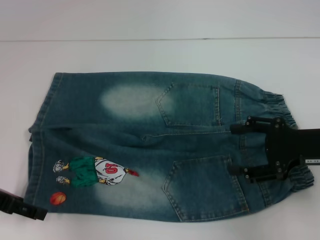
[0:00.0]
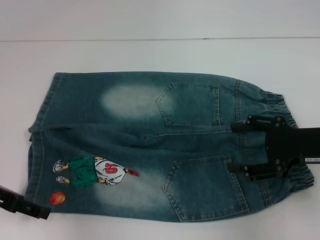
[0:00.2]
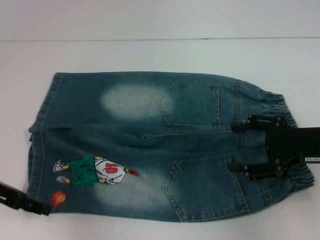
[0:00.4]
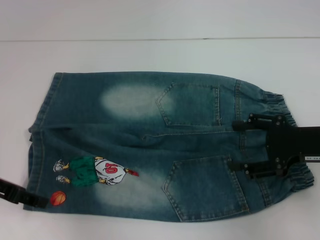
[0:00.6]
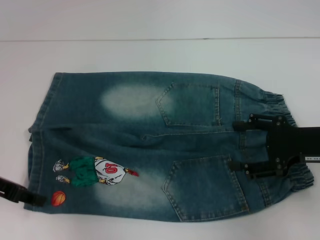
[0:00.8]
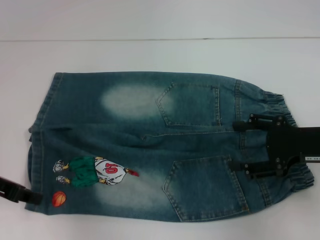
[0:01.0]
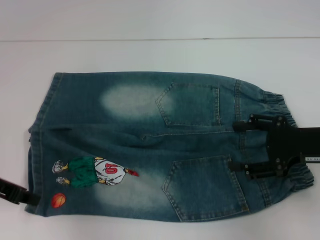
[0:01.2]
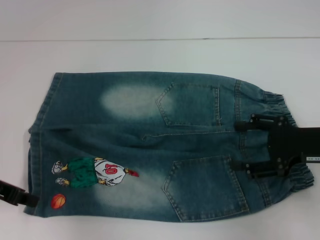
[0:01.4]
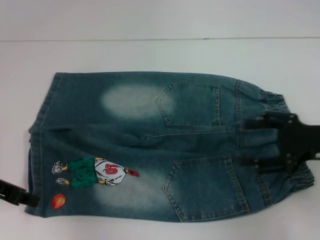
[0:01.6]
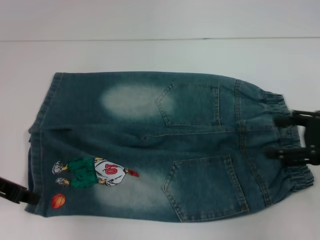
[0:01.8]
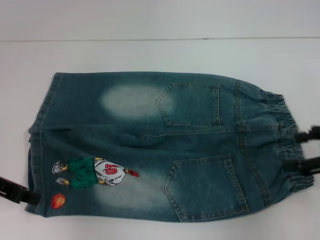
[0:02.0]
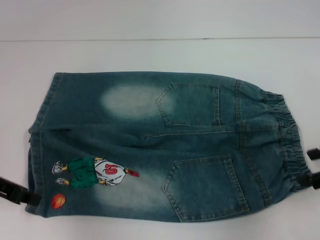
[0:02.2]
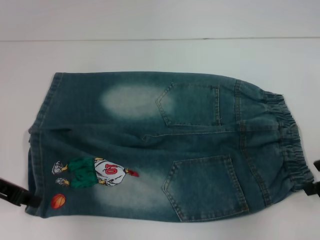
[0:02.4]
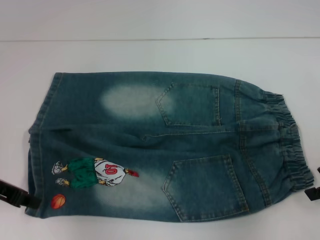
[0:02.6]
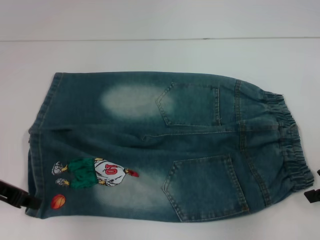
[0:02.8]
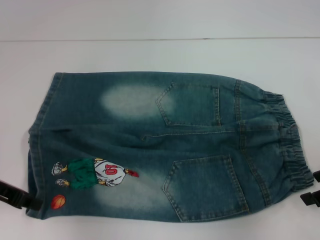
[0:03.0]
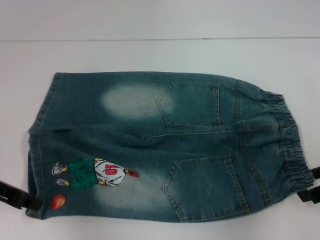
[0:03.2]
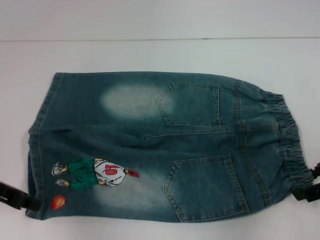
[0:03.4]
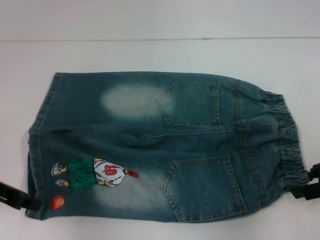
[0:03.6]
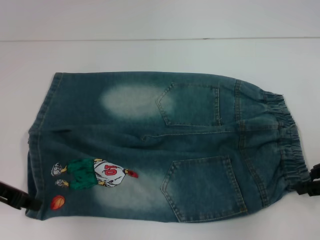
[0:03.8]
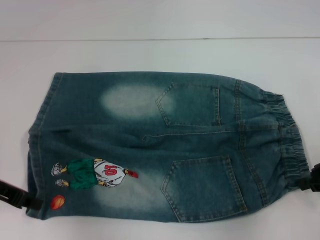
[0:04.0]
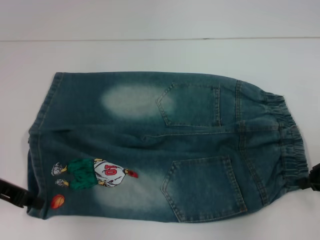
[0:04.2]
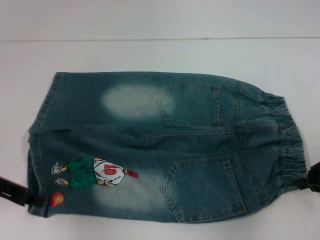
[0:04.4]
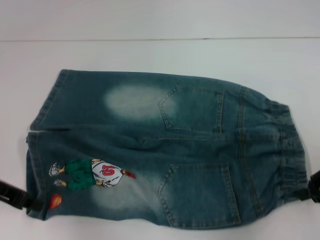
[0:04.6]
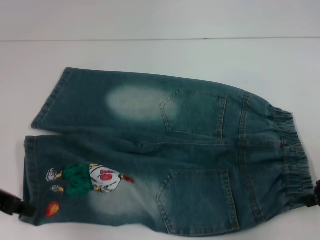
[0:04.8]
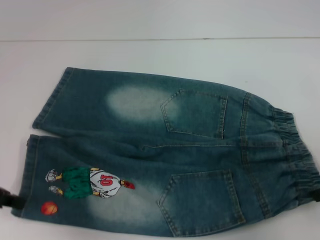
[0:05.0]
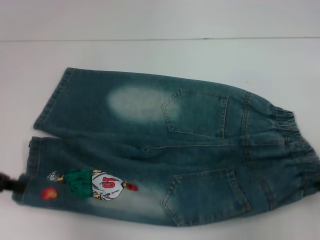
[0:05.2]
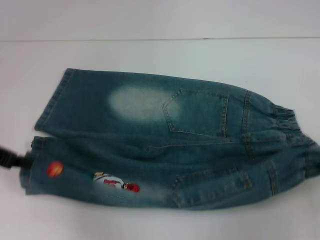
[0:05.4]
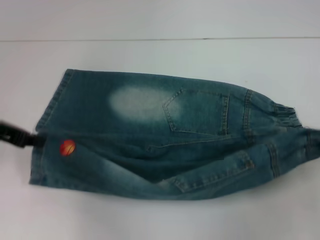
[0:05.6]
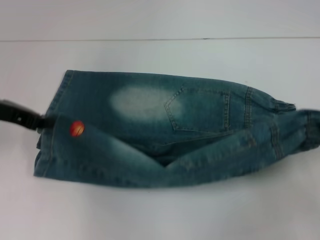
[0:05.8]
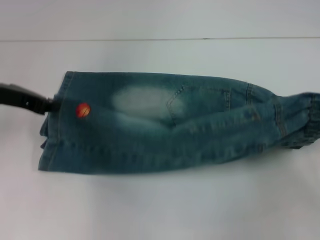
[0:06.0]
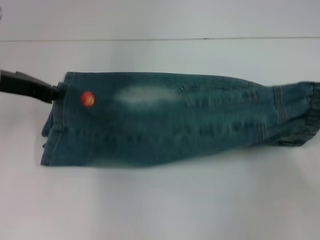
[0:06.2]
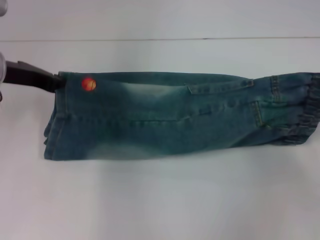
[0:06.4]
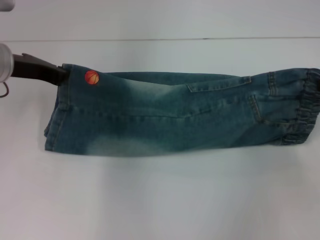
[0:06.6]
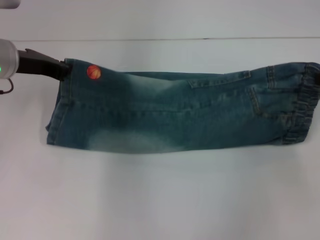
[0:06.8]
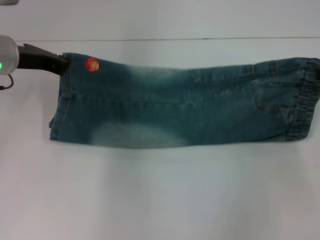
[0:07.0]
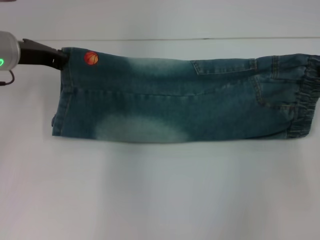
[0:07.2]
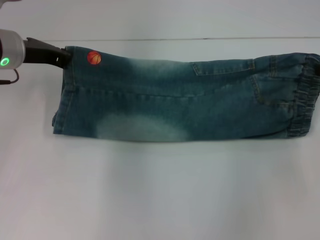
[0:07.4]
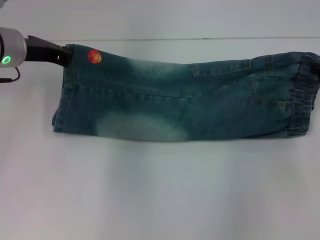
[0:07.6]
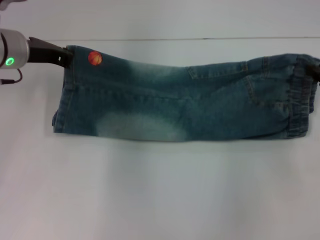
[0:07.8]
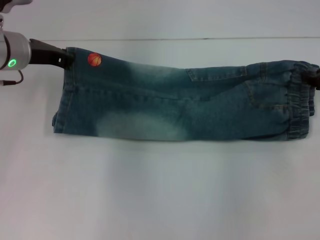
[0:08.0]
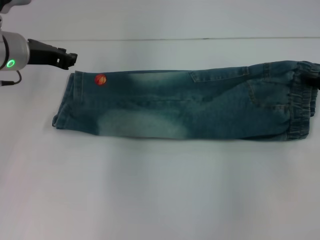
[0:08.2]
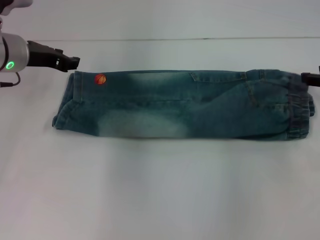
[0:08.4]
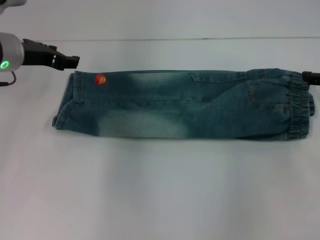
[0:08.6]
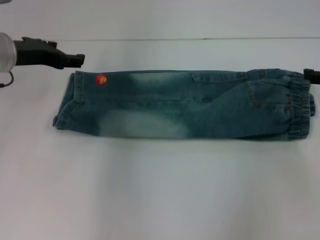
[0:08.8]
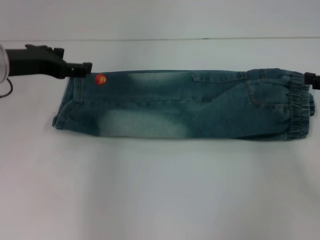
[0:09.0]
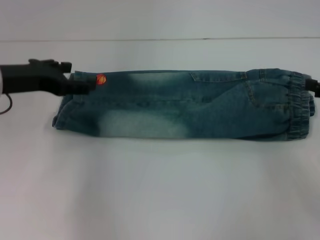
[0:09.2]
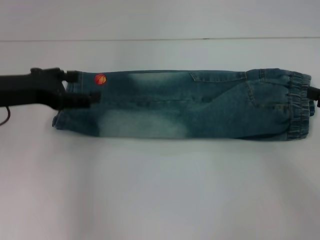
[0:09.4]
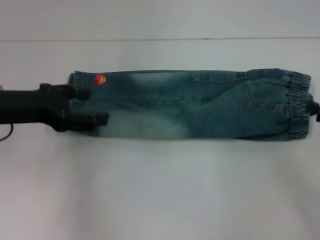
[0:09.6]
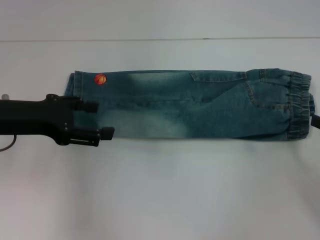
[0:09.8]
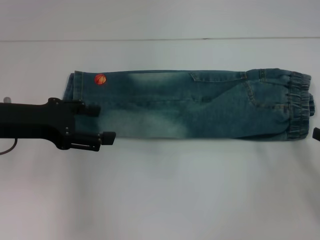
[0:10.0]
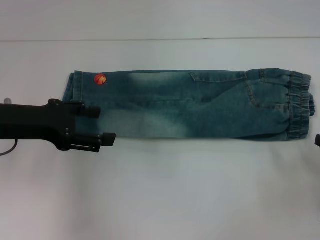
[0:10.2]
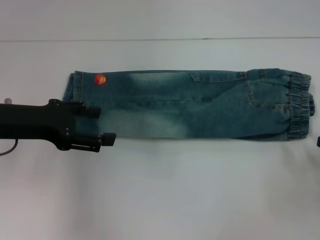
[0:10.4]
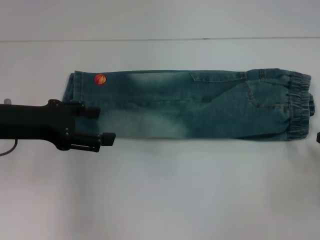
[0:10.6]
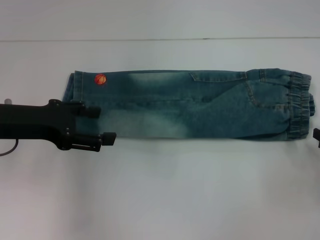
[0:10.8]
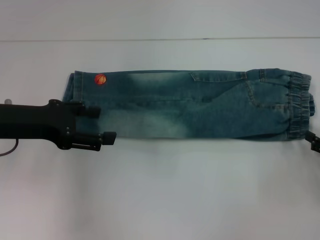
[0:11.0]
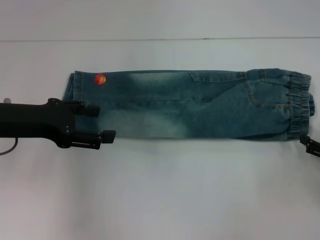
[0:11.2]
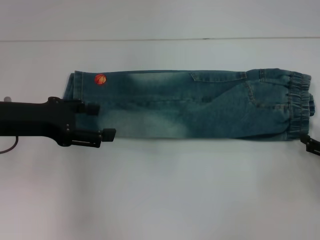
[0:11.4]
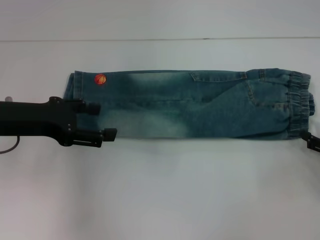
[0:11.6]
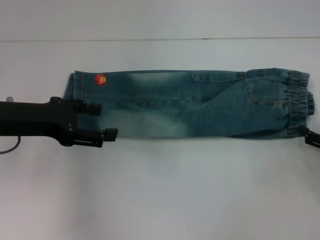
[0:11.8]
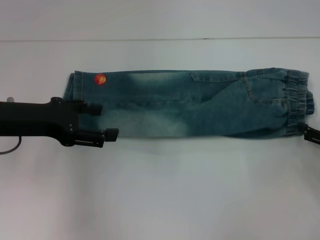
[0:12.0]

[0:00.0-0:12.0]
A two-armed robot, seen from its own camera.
Step, 0:00.0 to 0:04.6: Hold the lower right waistband with your right hand.
Step, 0:04.8 to 0:08.0: Fold upward with your left hand.
0:00.0 to 0:01.6: The left gripper closes up.
0:03.0 to 0:04.4: The right gripper closes.
0:04.4 to 0:06.0: The left gripper heads forward and upward, covering roughly 10 cm; the right gripper shifts by about 5 cm.
0:06.0 to 0:07.6: The grippers both shift forward by some 5 cm.
0:07.6 to 0:09.0: The left gripper opens. Meanwhile the right gripper opens.
0:09.0 to 0:10.4: The right gripper travels backward and downward by some 15 cm, while the left gripper travels backward by approximately 5 cm.
0:10.4 to 0:12.0: The right gripper travels forward by approximately 5 cm.

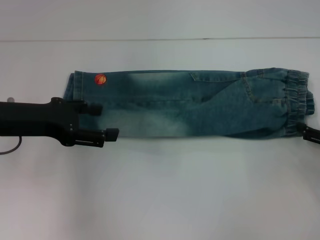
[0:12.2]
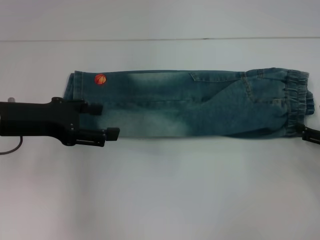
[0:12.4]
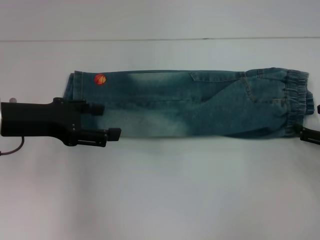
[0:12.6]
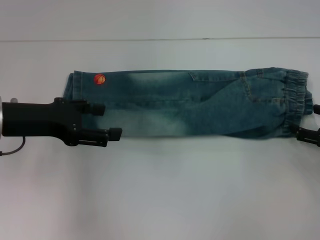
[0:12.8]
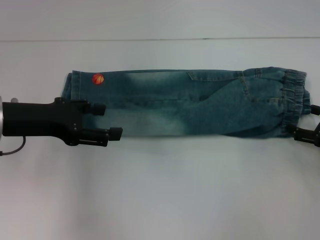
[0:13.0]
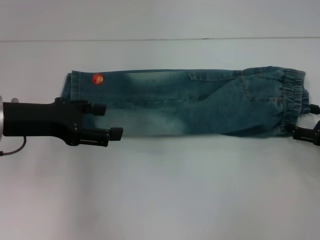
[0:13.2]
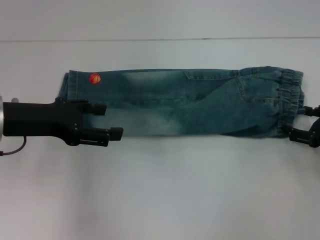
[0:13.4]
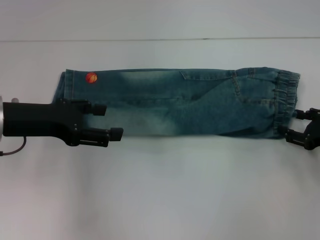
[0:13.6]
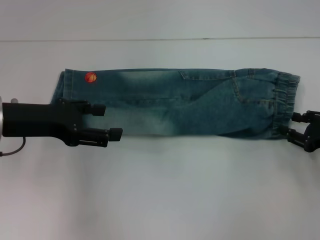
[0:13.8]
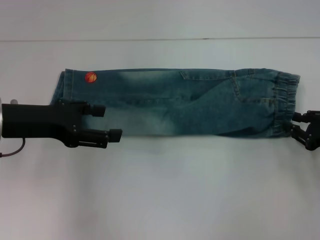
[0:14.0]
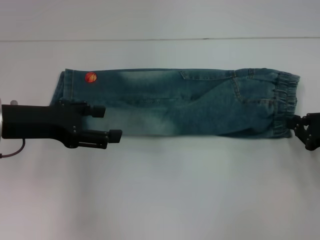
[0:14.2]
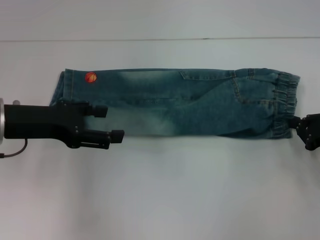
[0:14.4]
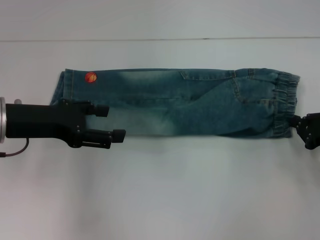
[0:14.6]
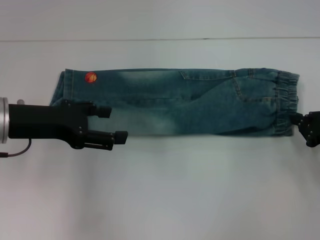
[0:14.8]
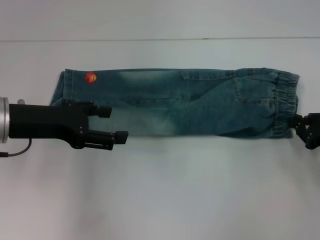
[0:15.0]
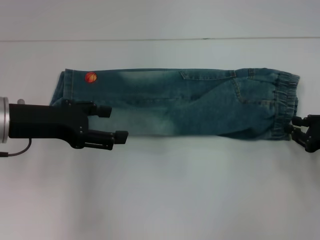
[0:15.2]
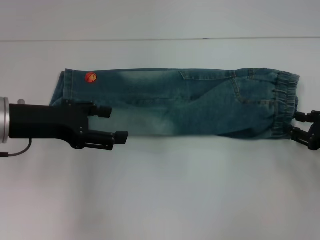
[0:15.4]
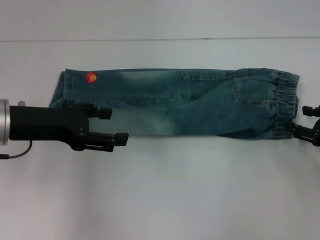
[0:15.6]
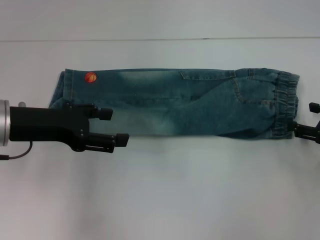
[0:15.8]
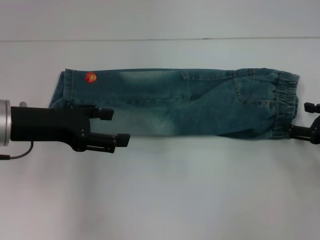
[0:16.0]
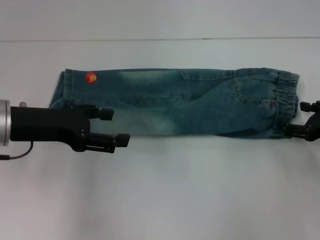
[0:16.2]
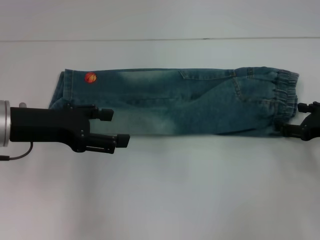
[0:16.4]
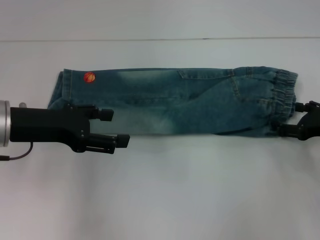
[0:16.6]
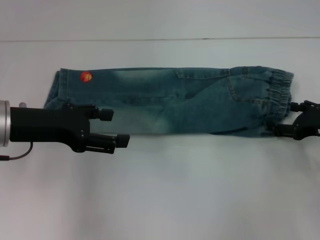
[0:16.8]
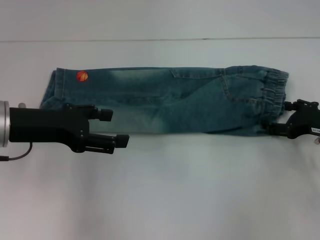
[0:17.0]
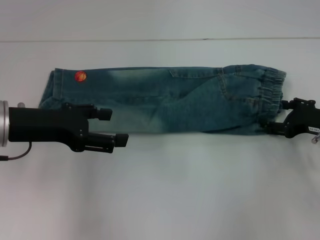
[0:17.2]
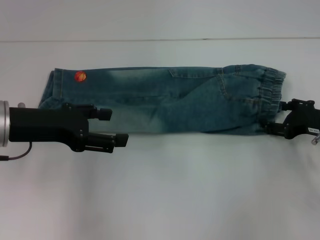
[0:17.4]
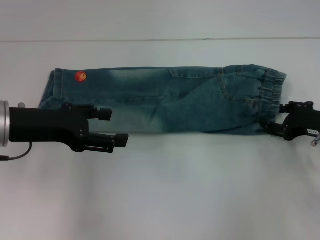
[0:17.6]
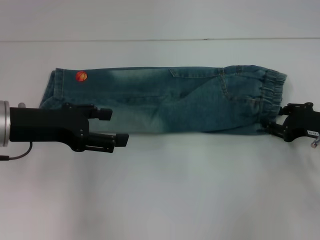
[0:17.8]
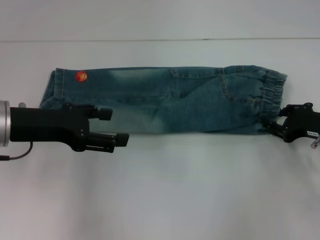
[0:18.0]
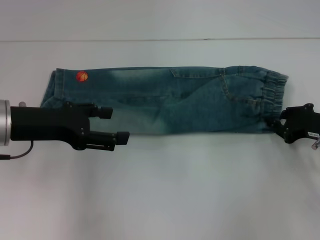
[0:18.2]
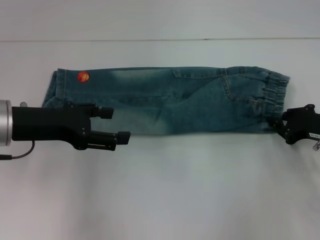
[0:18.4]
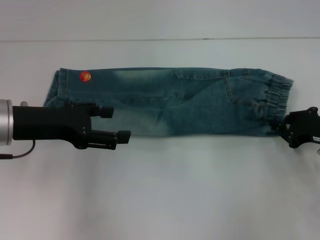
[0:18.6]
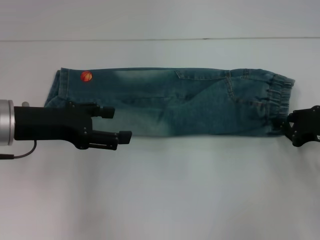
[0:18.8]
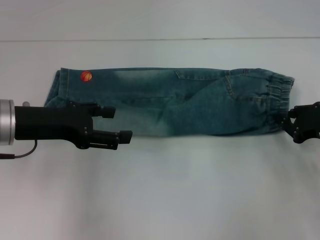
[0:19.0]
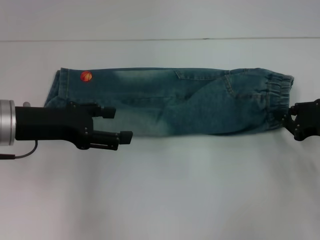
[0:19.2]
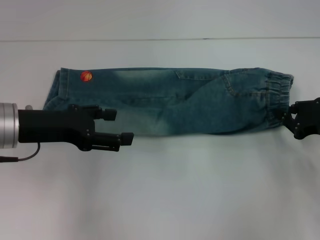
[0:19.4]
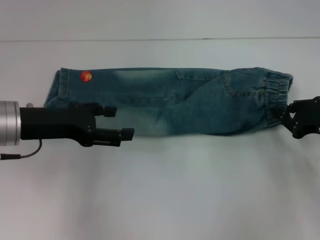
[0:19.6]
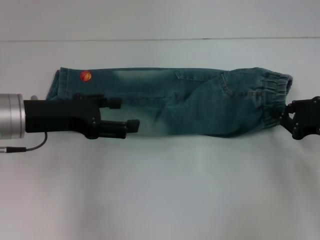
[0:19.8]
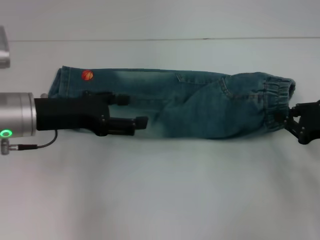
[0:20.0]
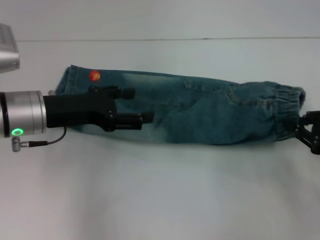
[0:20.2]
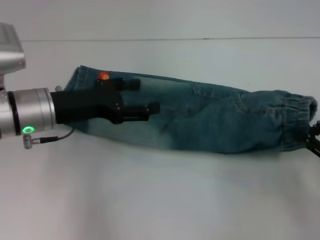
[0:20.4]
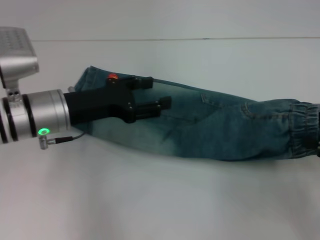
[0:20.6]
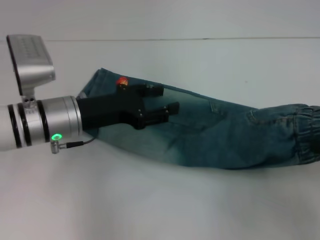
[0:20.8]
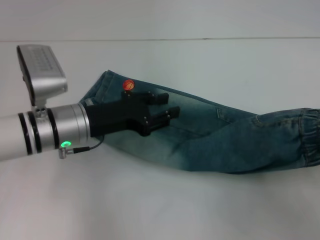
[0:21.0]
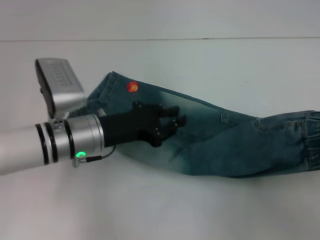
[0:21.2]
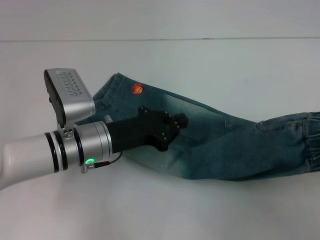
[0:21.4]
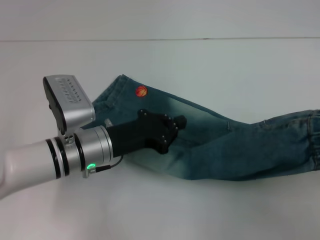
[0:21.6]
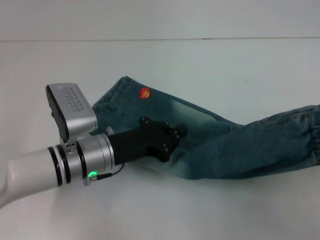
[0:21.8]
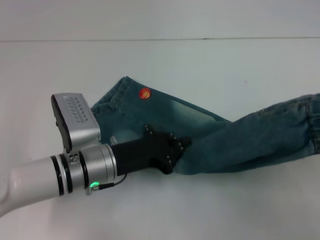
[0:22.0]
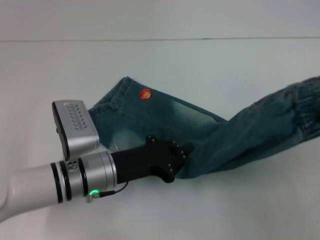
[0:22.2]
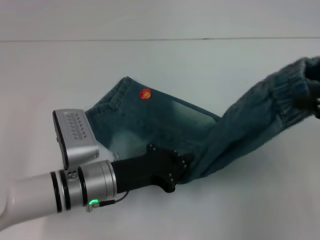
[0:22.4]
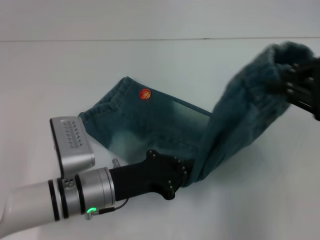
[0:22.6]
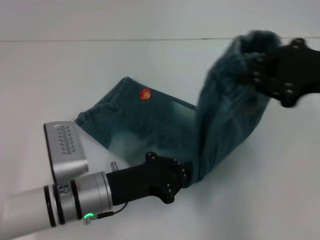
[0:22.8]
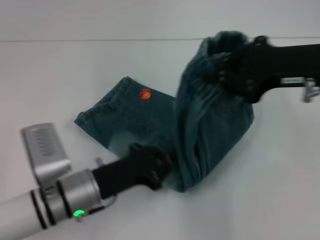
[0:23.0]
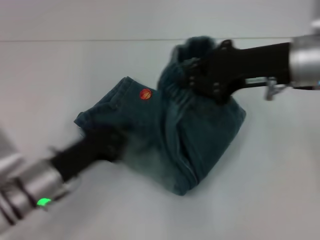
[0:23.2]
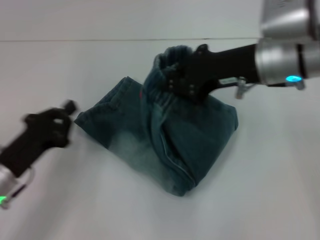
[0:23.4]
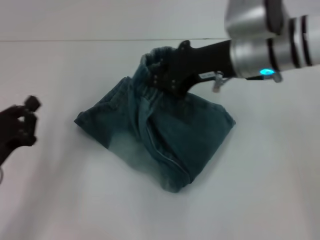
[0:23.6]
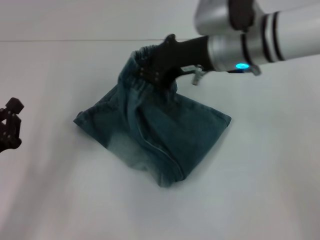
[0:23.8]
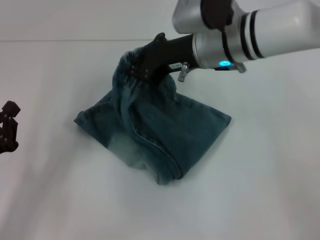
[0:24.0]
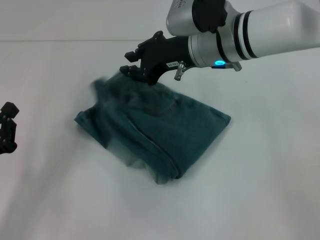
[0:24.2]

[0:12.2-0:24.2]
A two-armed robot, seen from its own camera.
Step, 0:12.2 to 0:18.4: Grab the waistband with your right hand.
Step, 0:18.8 to 0:22.8: Press the middle of the pants with your left hand.
0:12.2 to 0:13.8: The grippers make only small movements.
0:13.8 to 0:15.2: The right gripper closes up.
0:15.2 to 0:16.6: The right gripper opens its fingers.
0:16.6 to 0:18.2: The right gripper closes.
0:18.2 to 0:19.8: The grippers make only small movements.
0:19.8 to 0:21.2: The right gripper goes roughly 15 cm backward and upward; the left gripper goes some 10 cm to the right and downward, and closes its fingers.
0:21.2 to 0:22.6: The right gripper moves forward, to the left and upward, about 10 cm, while the left gripper heads backward and downward, covering approximately 10 cm, and closes.
0:22.6 to 0:24.2: The left gripper moves to the left, roughly 15 cm, while the right gripper travels to the left and forward by about 25 cm.
